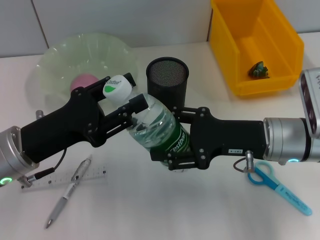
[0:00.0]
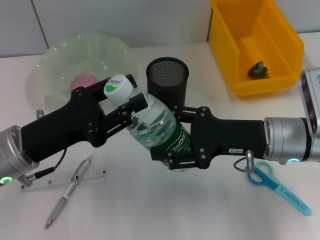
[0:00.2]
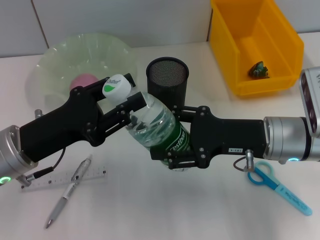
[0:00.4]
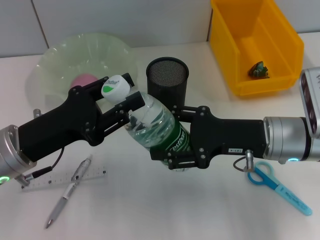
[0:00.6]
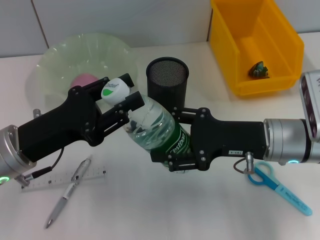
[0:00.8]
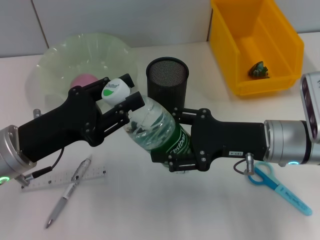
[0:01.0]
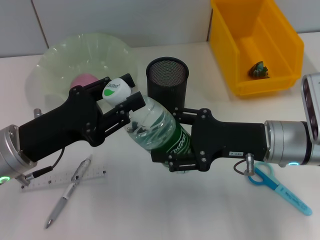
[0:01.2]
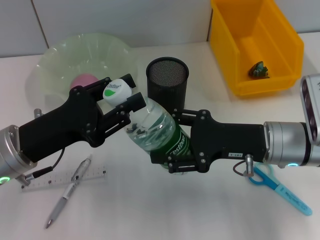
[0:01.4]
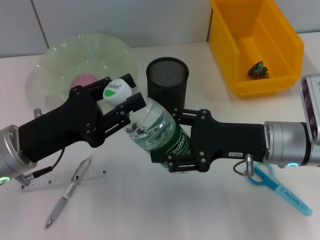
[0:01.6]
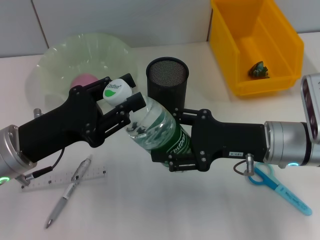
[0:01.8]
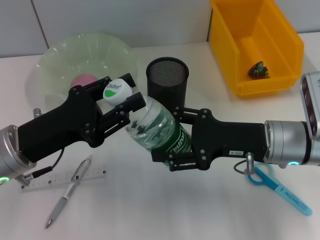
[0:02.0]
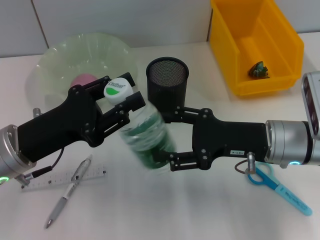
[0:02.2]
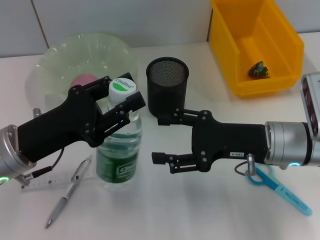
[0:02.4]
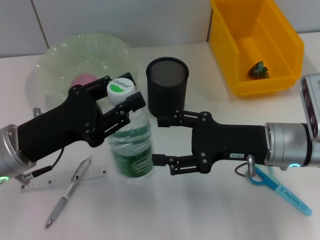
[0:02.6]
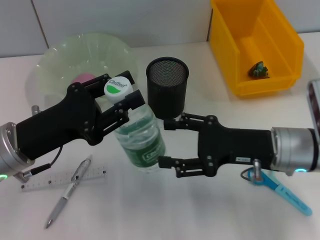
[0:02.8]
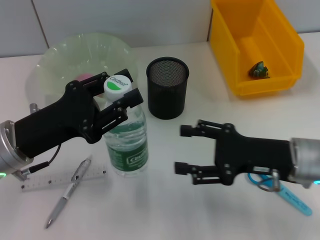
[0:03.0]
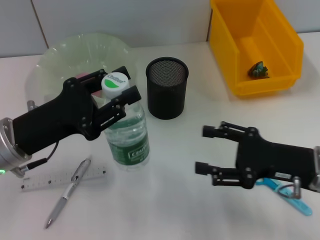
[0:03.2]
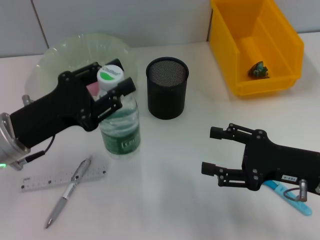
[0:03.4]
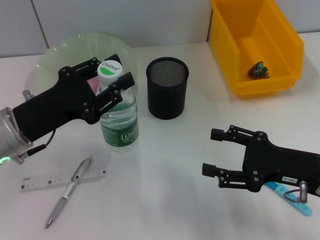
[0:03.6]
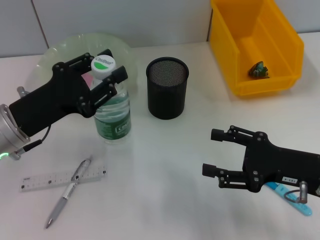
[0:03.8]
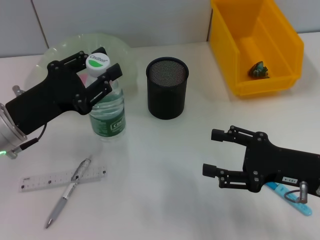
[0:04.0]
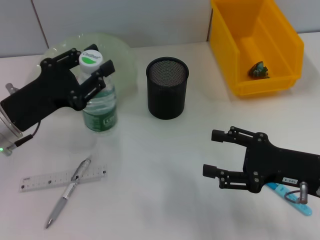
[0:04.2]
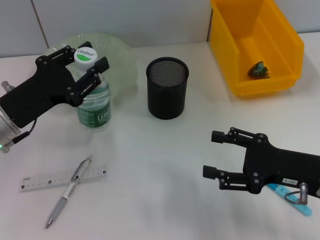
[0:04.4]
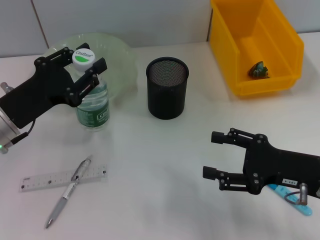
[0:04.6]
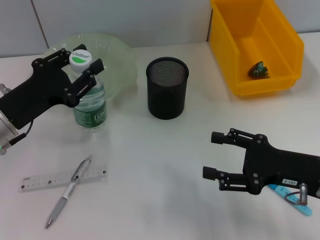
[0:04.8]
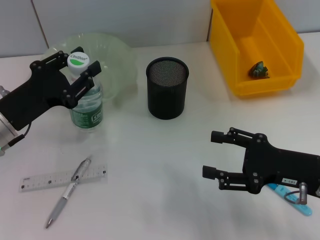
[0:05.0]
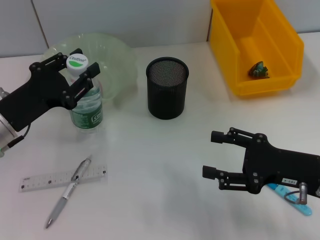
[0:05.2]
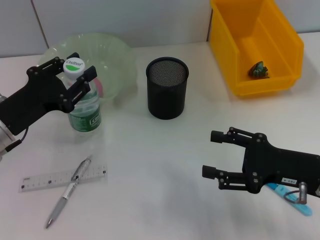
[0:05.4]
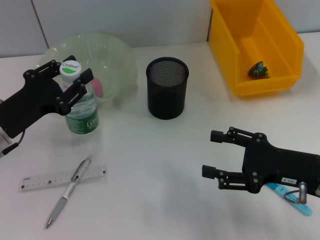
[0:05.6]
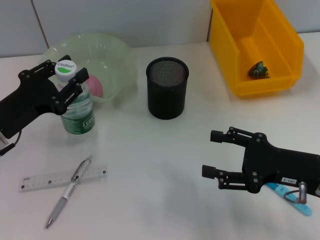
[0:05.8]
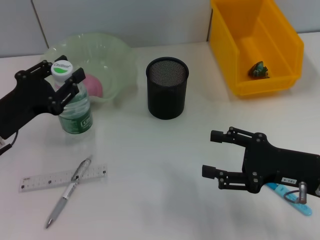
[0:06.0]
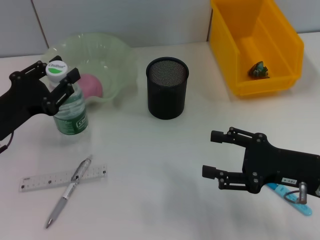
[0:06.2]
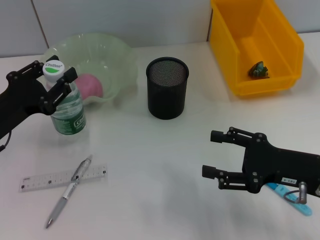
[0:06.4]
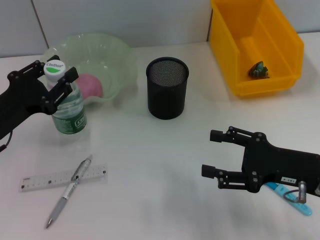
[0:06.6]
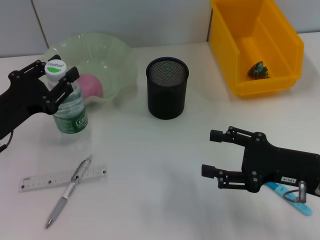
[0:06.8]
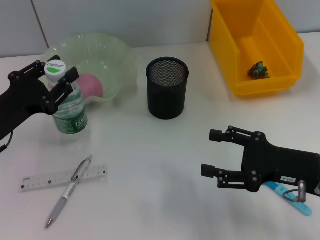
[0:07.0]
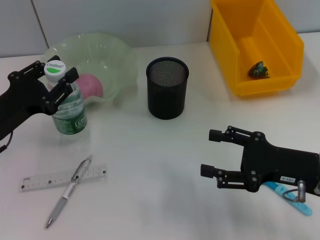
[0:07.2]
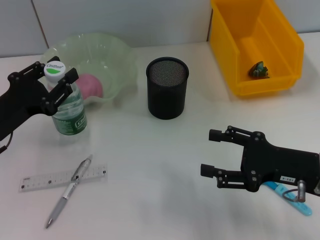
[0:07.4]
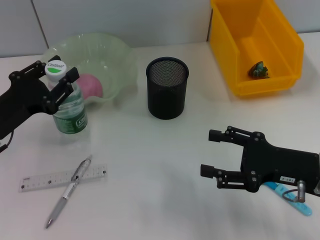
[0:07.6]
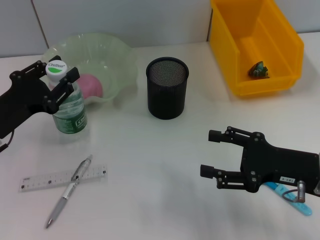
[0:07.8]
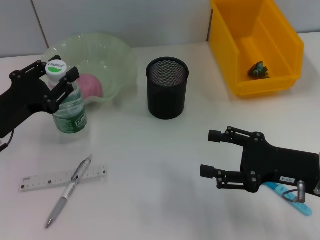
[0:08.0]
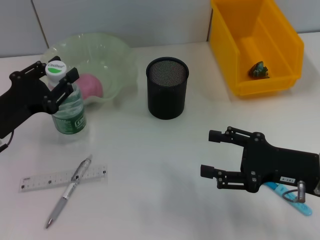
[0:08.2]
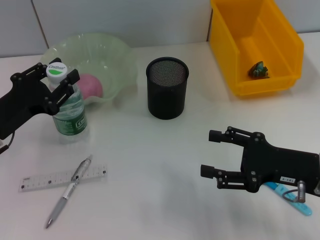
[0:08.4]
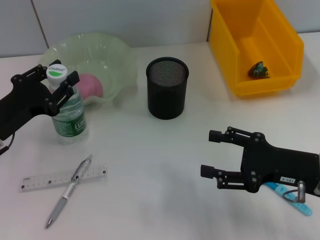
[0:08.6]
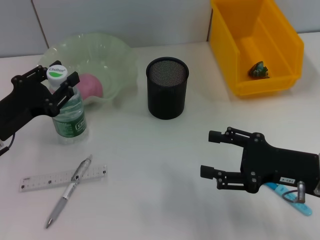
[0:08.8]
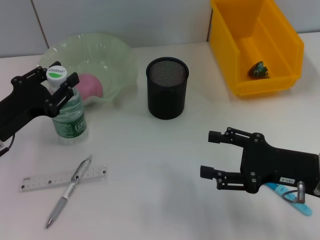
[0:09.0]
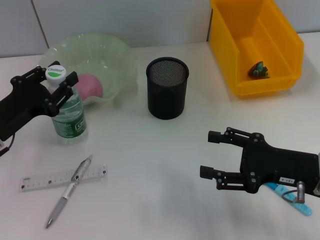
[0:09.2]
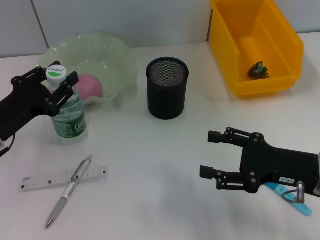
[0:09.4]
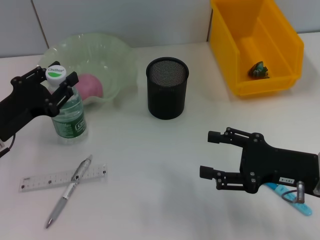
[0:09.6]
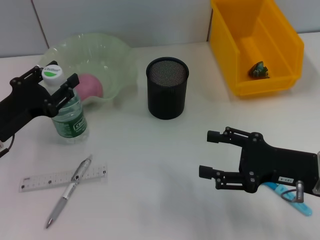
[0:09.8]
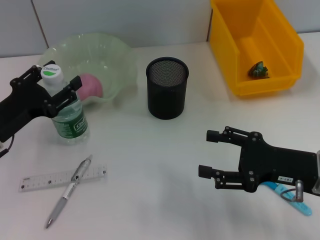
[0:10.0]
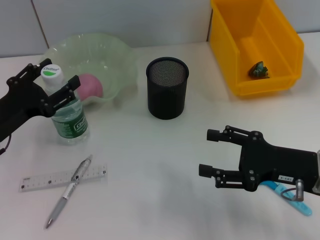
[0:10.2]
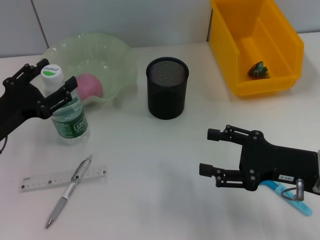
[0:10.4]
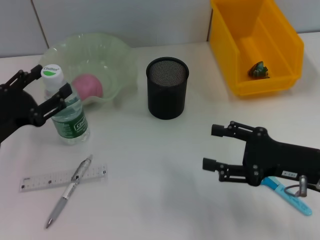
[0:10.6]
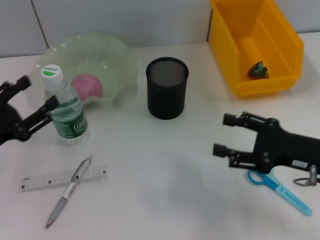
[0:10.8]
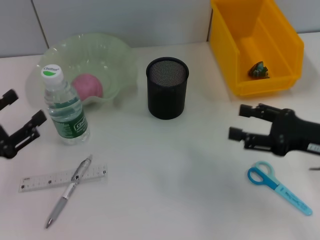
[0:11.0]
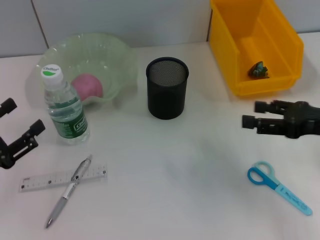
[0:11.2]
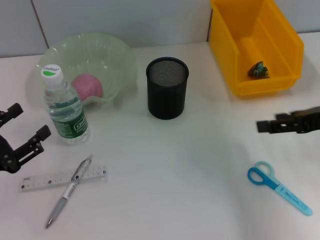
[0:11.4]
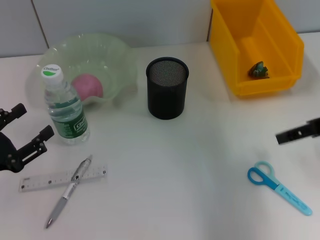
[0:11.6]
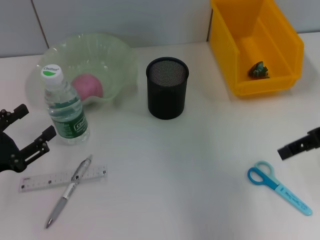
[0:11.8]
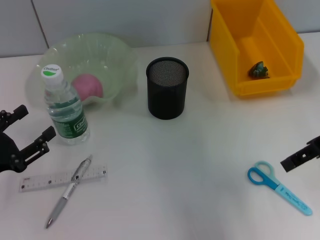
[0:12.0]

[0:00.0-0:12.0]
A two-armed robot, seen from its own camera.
Step, 0:00.0 to 0:02.6: Pass the water bottle from the right hand to the left hand.
Step, 0:02.8 to 0:10.2: Place the water bottle on the table with the left hand.
0:00.0 to 0:01.6: The two grippers keep their place.
0:04.4 to 0:06.0: The grippers stay close to where they were, moving slightly.
0:06.0 to 0:09.0: The two grippers keep their place.
0:09.0 to 0:10.4: The left gripper opens.
0:10.4 to 0:12.0: The left gripper goes some 5 cm backward. Meanwhile the right gripper travels upward and forward by some 15 cm.

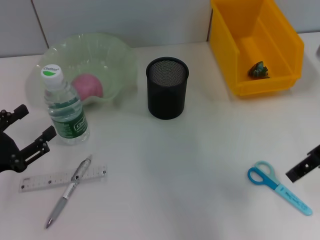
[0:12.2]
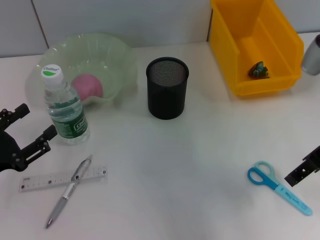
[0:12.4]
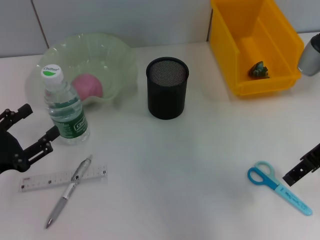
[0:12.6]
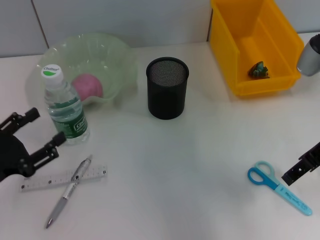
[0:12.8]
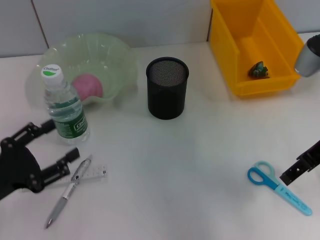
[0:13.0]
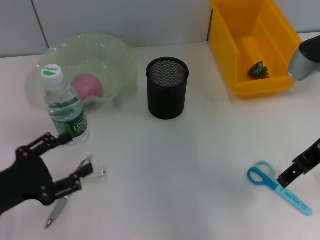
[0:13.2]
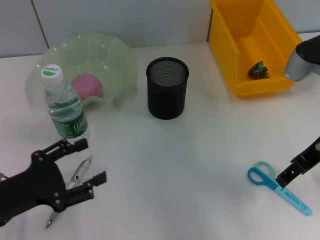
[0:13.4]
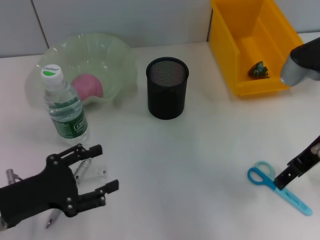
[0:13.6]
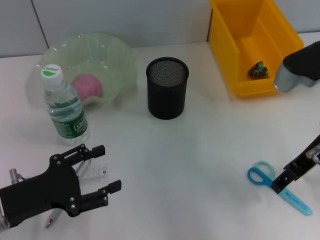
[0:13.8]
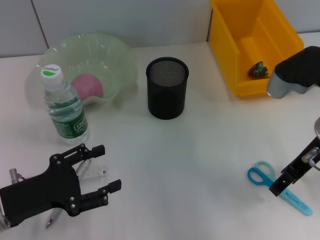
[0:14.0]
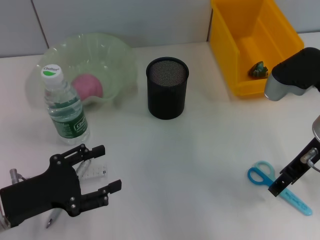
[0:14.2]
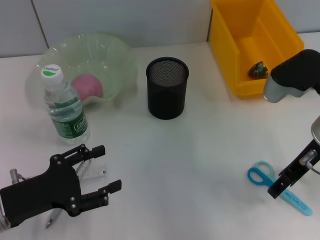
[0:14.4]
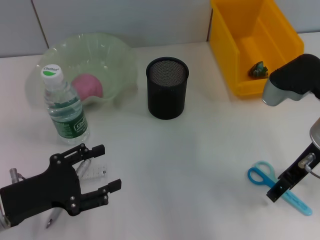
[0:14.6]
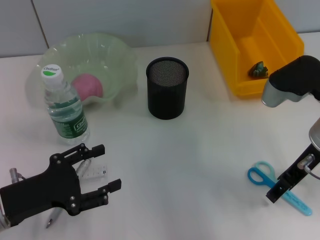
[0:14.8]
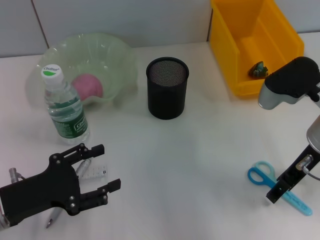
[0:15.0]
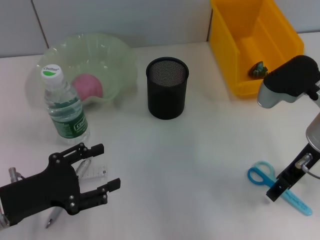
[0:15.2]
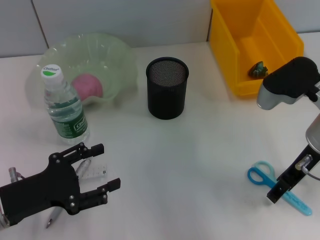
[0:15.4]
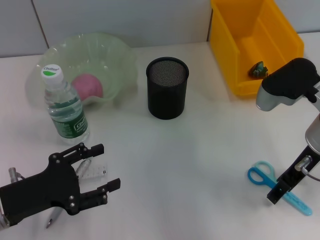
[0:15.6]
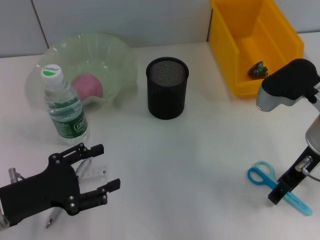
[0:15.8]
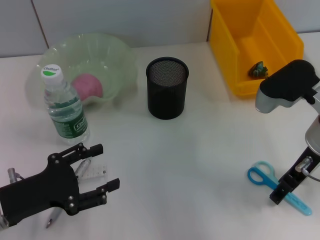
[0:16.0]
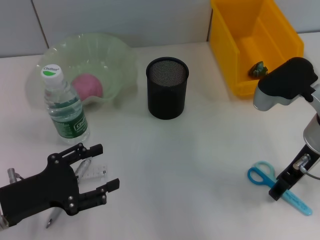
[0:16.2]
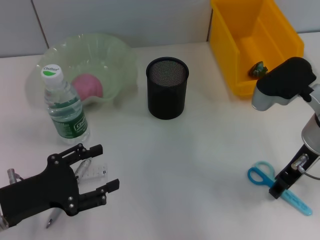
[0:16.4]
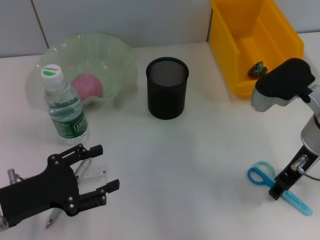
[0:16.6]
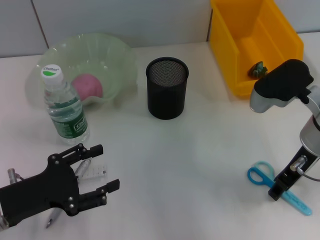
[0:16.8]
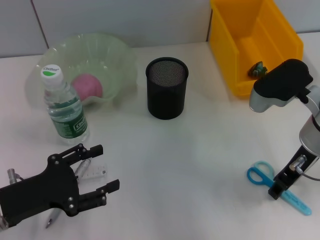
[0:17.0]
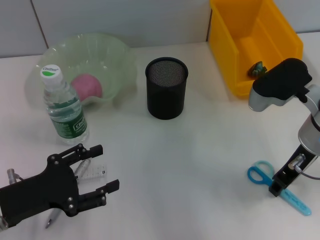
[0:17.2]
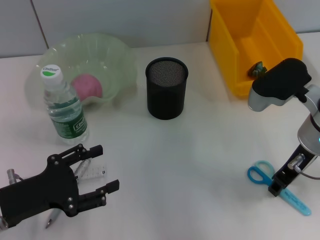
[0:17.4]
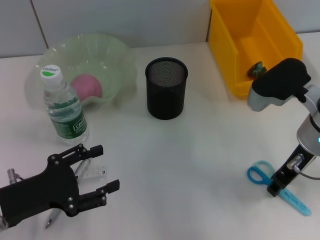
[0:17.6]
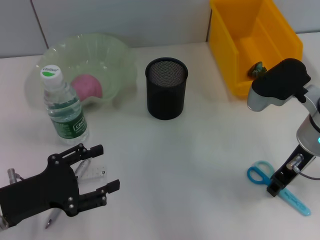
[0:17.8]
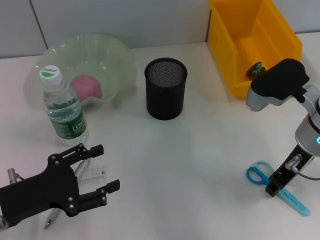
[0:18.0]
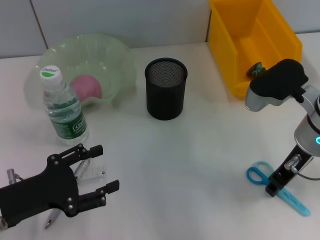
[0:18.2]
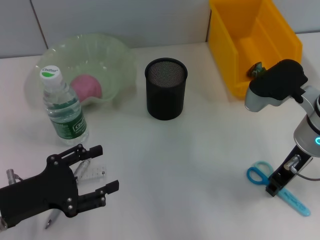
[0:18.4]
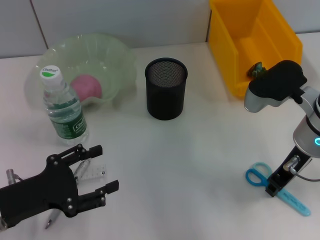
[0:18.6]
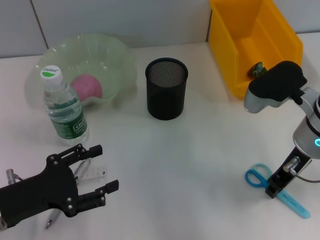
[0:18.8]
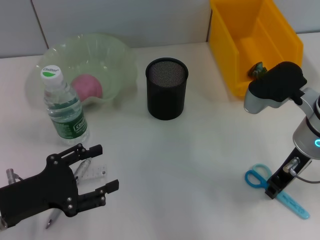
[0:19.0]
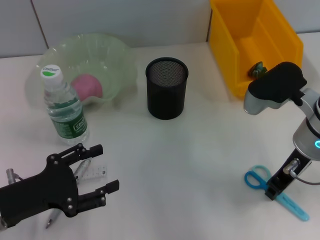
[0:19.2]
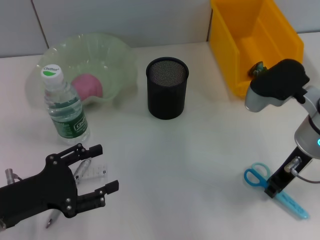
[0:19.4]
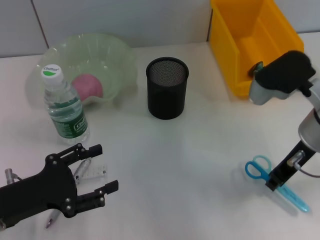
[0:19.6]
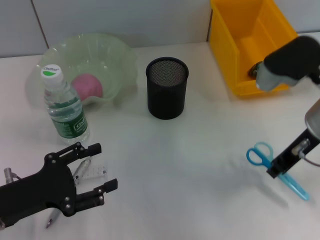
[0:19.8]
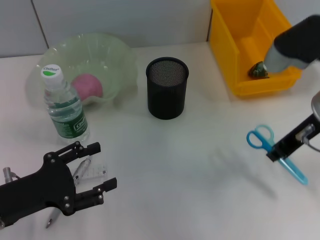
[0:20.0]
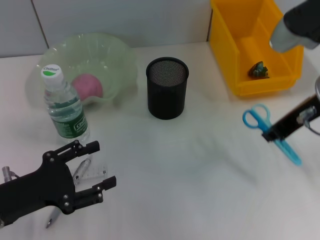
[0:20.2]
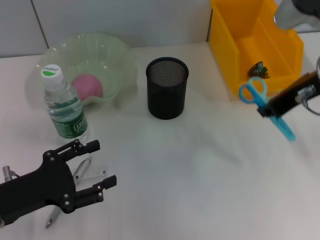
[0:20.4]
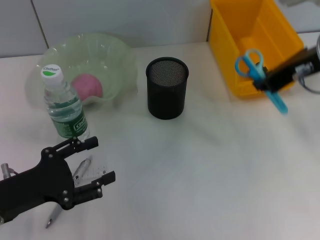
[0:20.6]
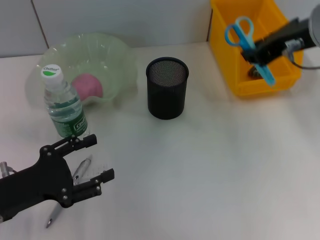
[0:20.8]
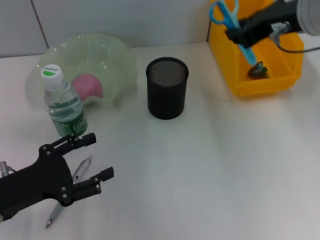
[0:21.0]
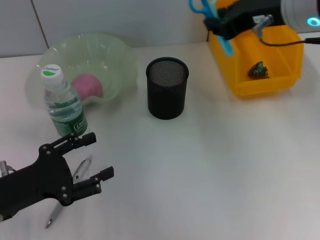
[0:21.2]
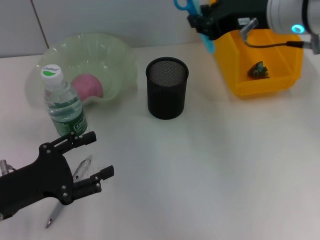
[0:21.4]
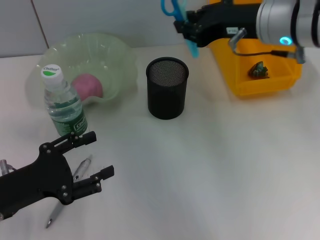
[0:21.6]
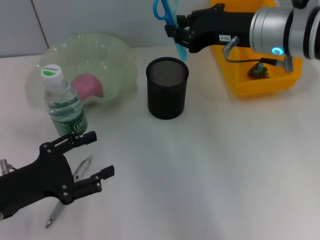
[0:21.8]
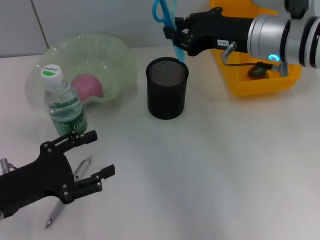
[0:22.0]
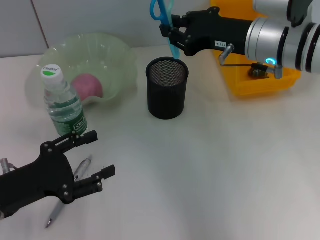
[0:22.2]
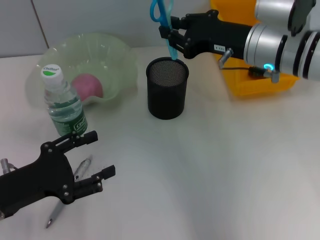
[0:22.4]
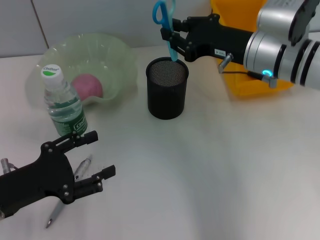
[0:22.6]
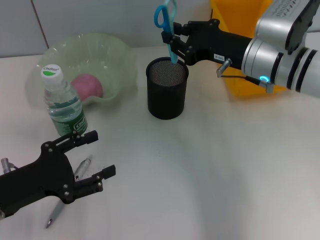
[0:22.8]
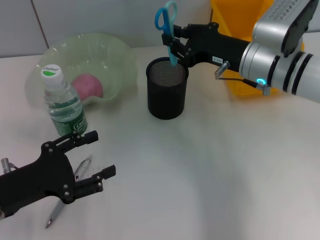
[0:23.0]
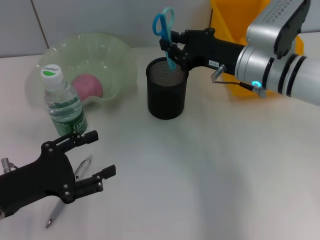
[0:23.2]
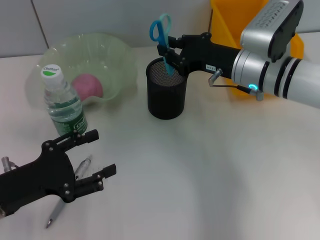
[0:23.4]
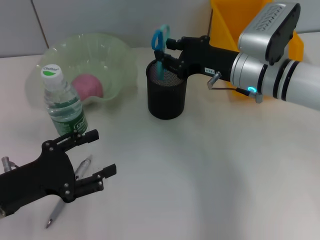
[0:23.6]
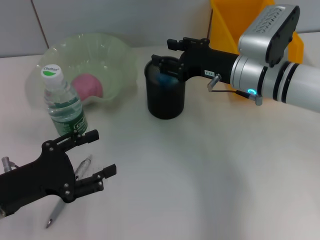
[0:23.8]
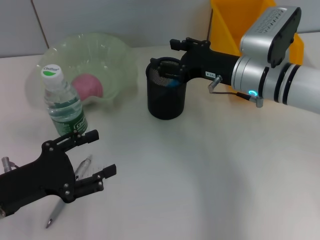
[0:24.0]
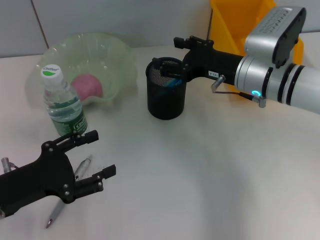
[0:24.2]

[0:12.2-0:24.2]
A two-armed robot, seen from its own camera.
Step, 0:12.2 to 0:19.0: Grab the blue scissors with the right hand.
Step, 0:19.2 to 0:24.0: Place the blue scissors into the pen holder with the right hand.
0:12.2 to 0:13.8: The right gripper changes place by some 5 cm; the left gripper travels to the right by about 5 cm.
0:13.8 to 0:15.2: The grippers make only small movements.
0:15.2 to 0:16.6: Both grippers stay about where they are.
0:16.6 to 0:18.2: Both grippers stay about where they are.
0:18.2 to 0:19.8: The grippers move only a little.
0:19.8 to 0:21.2: The right gripper moves upward, roughly 10 cm.
0:21.2 to 0:22.6: The right gripper shifts some 10 cm downward.
0:22.6 to 0:24.2: The right gripper opens.
